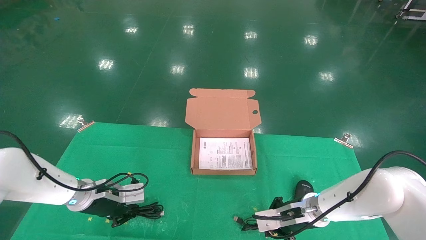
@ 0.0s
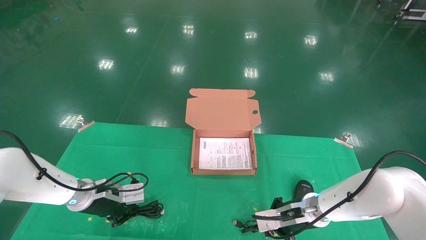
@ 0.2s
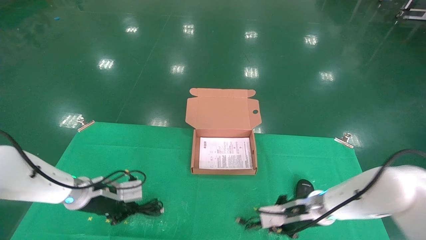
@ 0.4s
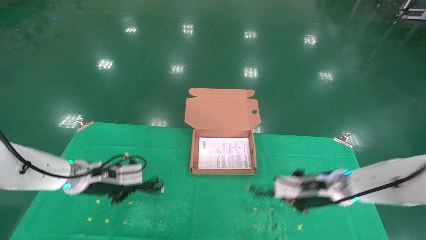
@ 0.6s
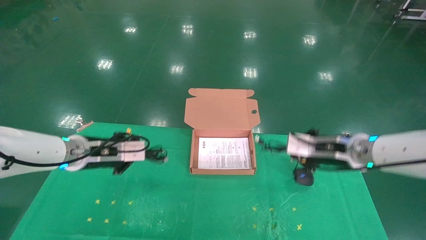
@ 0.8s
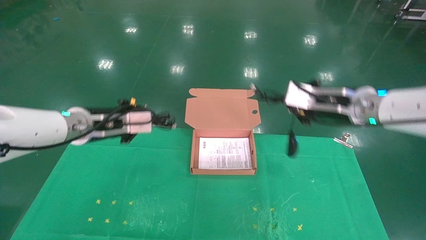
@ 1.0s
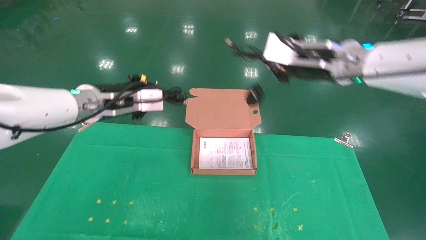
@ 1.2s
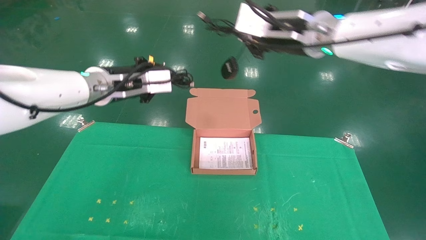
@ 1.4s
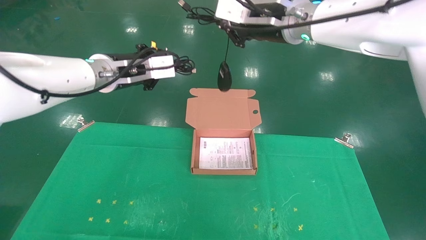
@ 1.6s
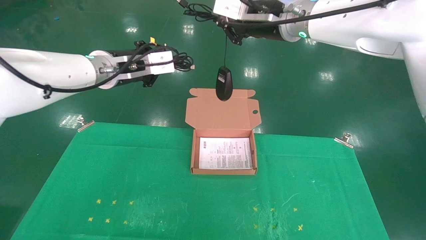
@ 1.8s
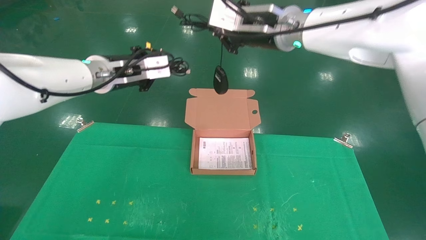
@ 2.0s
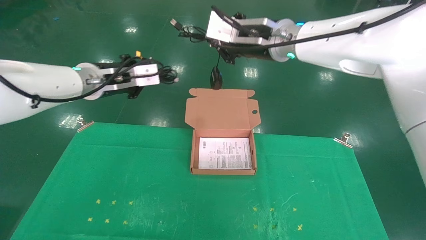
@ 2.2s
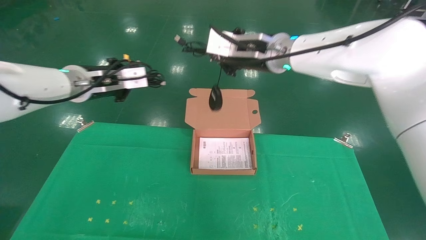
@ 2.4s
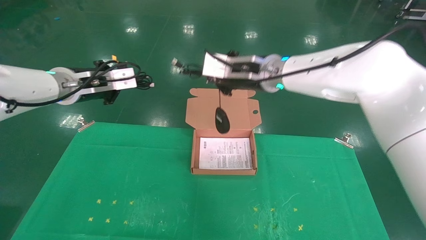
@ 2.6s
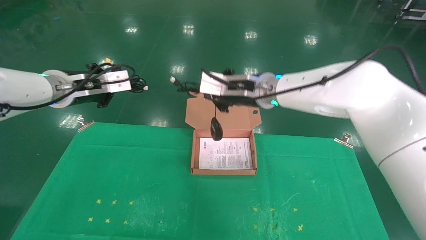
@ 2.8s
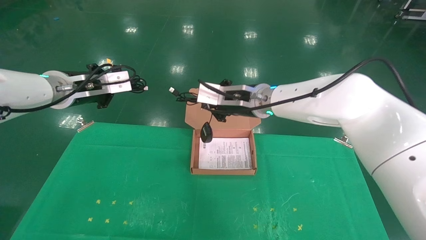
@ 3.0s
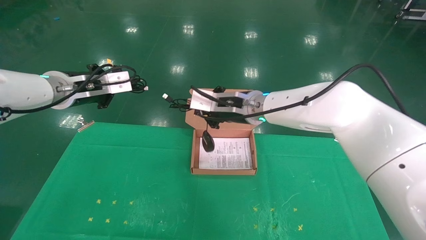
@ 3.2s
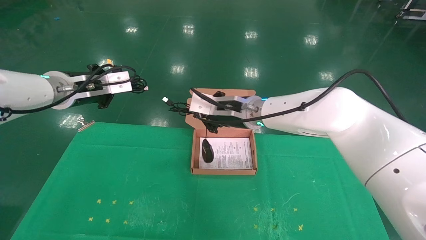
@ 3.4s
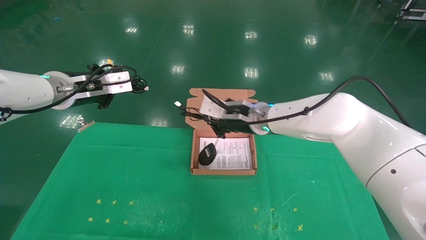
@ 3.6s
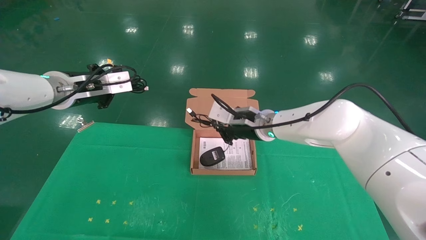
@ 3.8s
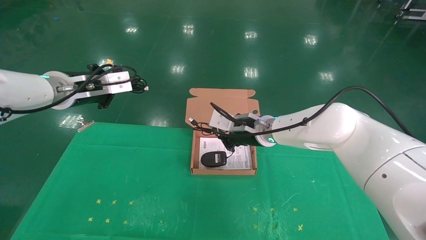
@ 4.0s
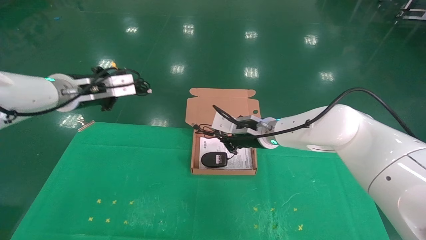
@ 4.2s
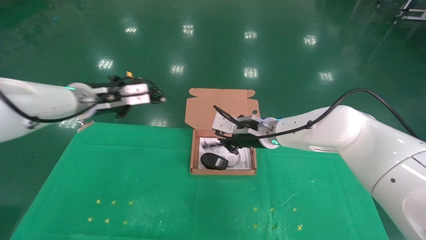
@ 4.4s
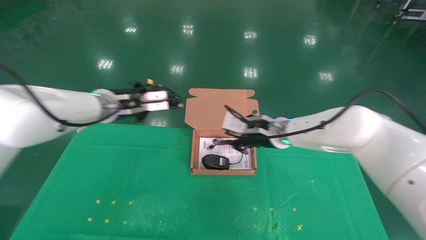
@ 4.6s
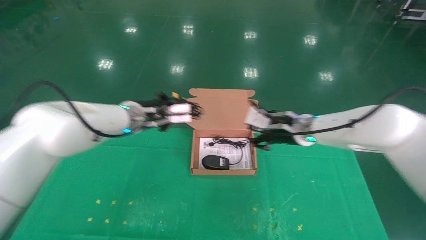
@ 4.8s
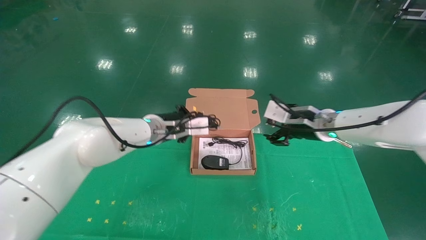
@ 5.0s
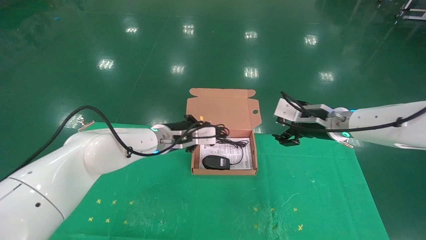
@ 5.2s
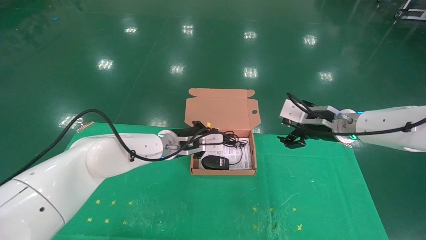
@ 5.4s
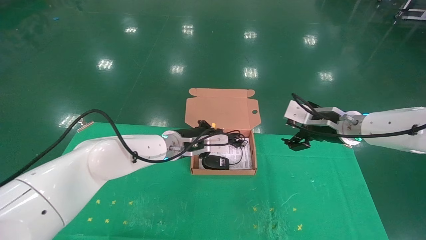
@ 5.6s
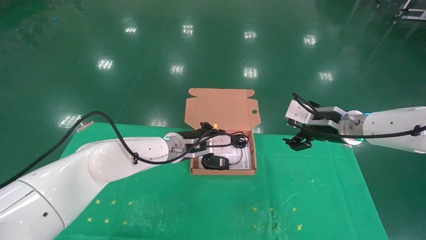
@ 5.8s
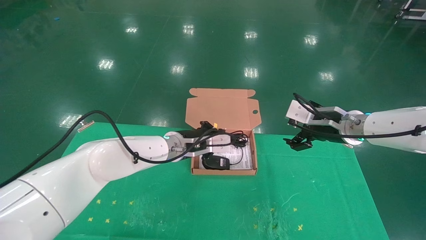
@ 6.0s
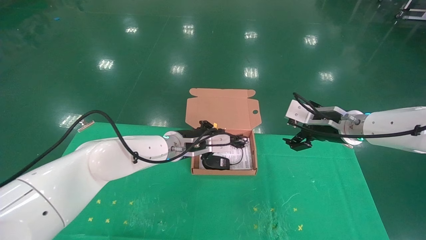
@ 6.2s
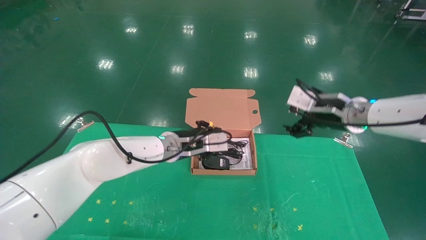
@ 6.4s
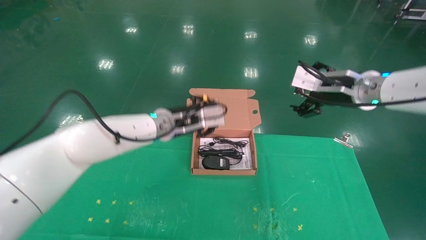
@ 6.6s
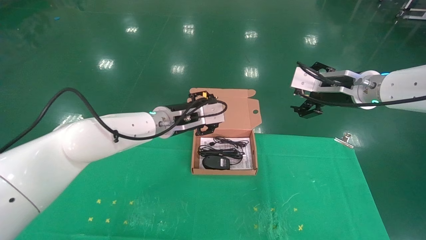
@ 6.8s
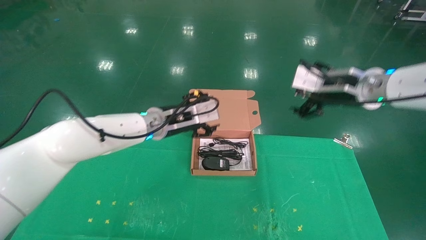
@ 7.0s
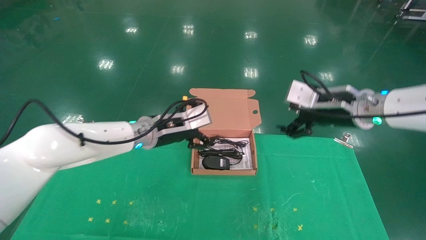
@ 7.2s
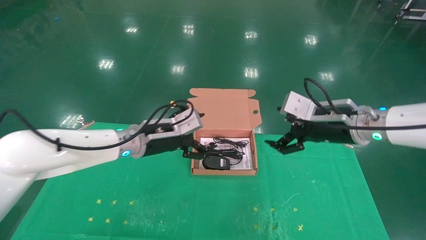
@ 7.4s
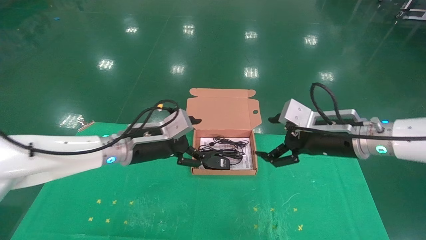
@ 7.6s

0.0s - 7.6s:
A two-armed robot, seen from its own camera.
Task of the whole recording: grasp data cable left put into box grasp mouse right put into box.
Step, 0.0s - 6.2s: Place the mouse and power cord into the box.
0.0s - 1.6s: The grippers both shift upward by some 35 cm.
1.6s - 3.0s: The left gripper heads to the left, covering about 10 cm. The right gripper moves downward, approximately 15 cm.
3.0s - 4.6s: The left gripper shifts roughly 10 cm to the right. Meanwhile the right gripper travels to the right and downward by some 10 cm.
4.6s - 6.0s: The left gripper shifts roughly 15 cm to the right and downward; the right gripper is displaced to the right by roughly 10 cm, and opens its fingers.
6.0s - 7.6s: The right gripper goes about 5 cm backward. Meanwhile the left gripper shifts some 10 cm to the left and backward, and opens up.

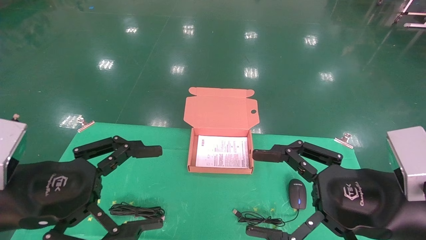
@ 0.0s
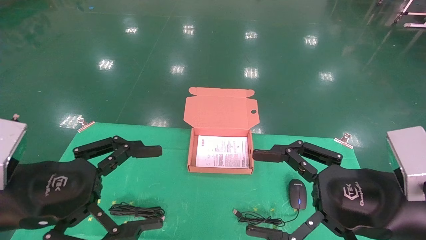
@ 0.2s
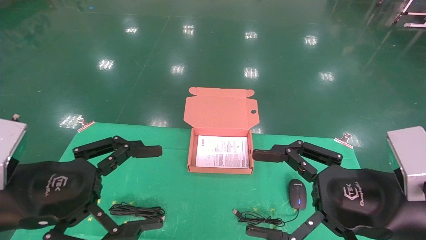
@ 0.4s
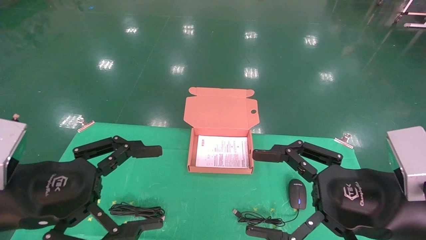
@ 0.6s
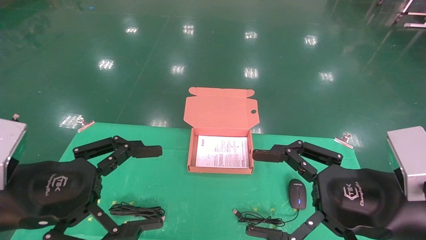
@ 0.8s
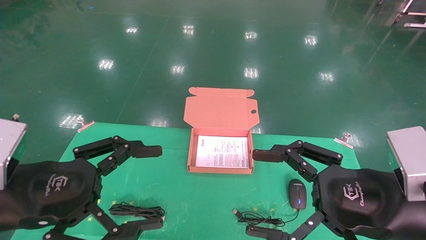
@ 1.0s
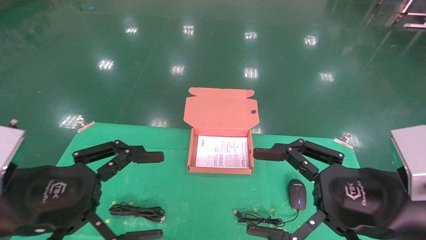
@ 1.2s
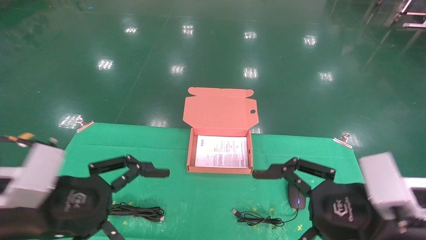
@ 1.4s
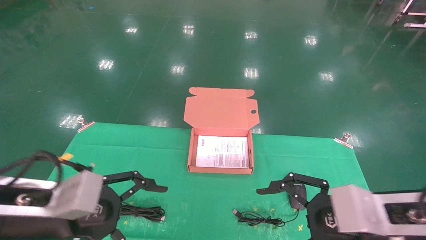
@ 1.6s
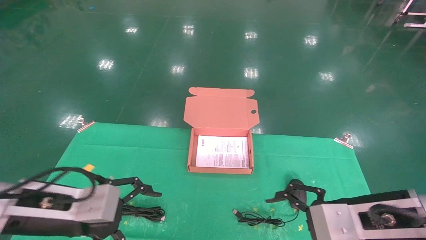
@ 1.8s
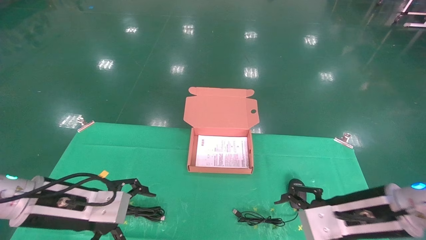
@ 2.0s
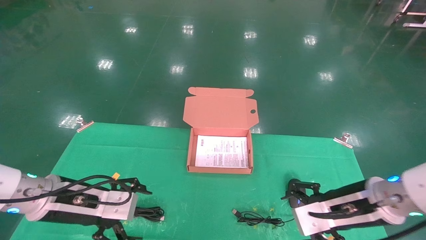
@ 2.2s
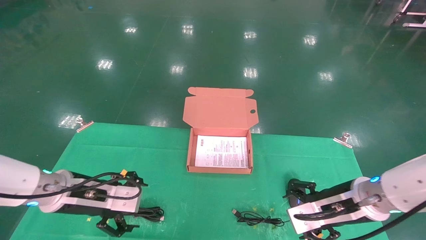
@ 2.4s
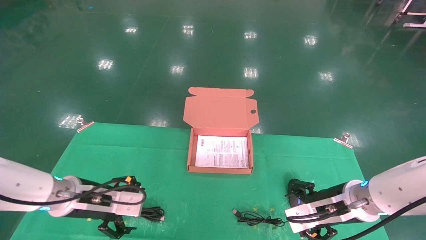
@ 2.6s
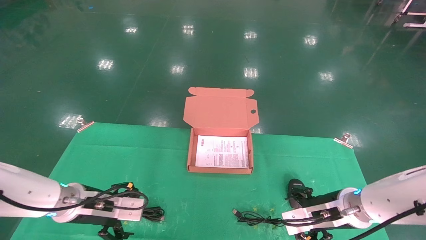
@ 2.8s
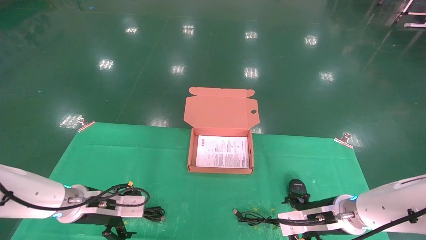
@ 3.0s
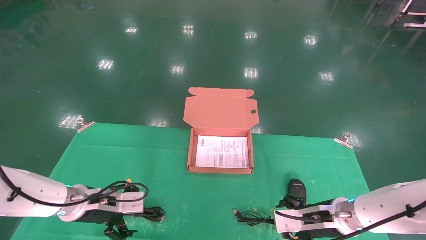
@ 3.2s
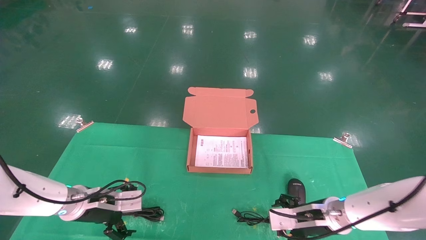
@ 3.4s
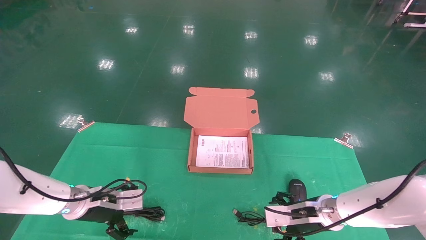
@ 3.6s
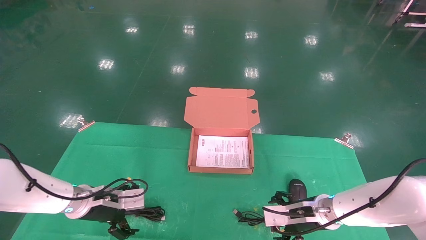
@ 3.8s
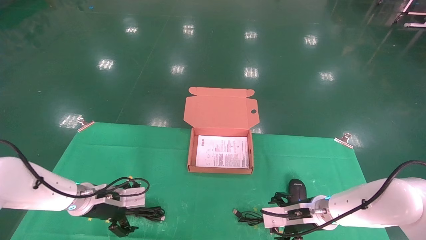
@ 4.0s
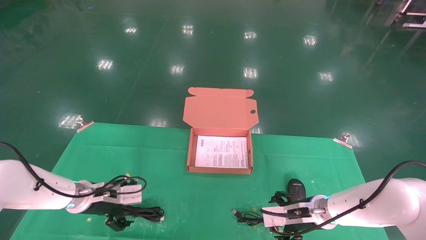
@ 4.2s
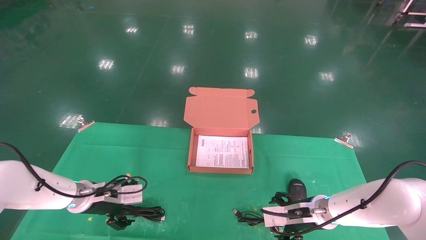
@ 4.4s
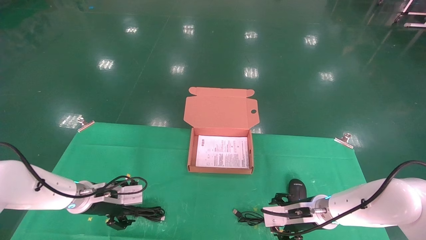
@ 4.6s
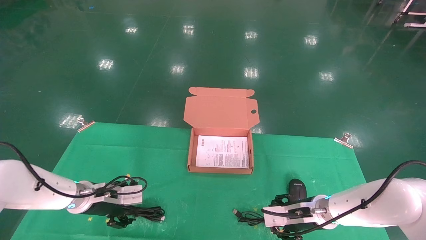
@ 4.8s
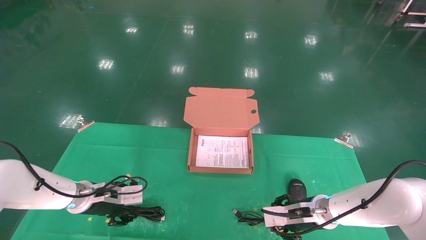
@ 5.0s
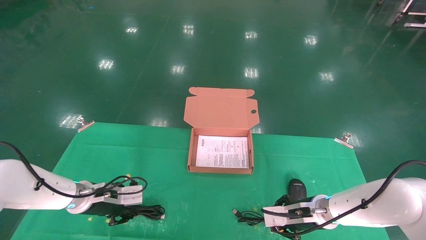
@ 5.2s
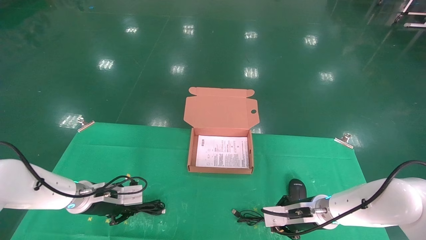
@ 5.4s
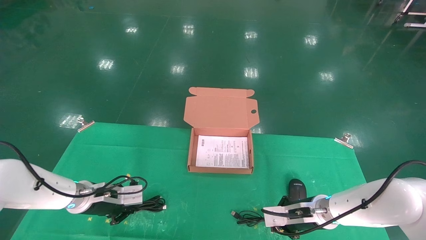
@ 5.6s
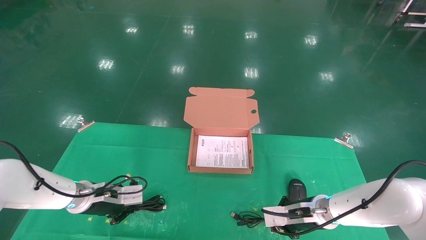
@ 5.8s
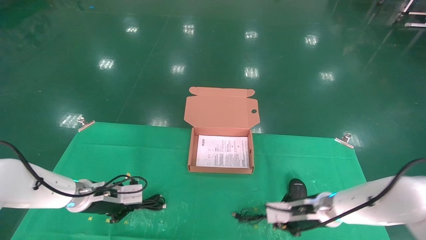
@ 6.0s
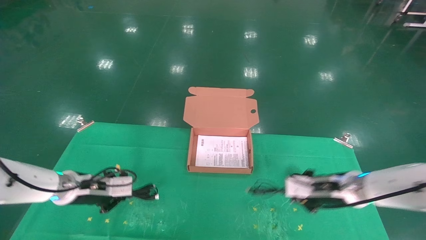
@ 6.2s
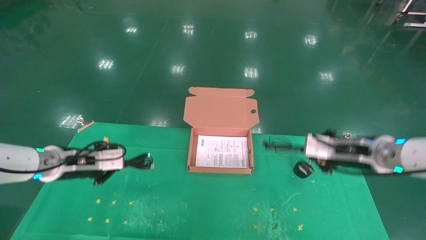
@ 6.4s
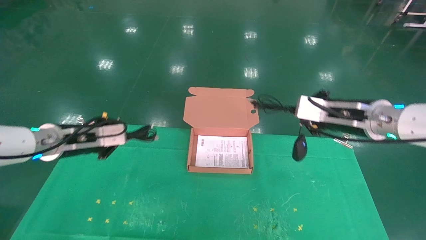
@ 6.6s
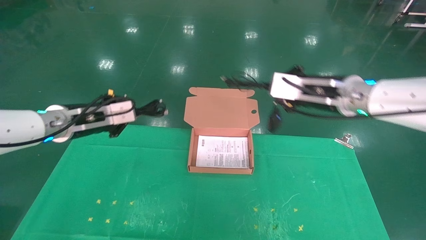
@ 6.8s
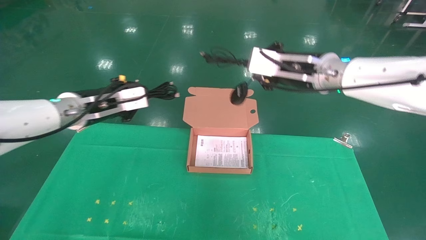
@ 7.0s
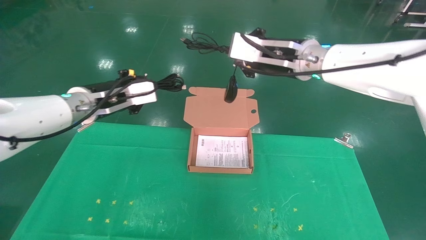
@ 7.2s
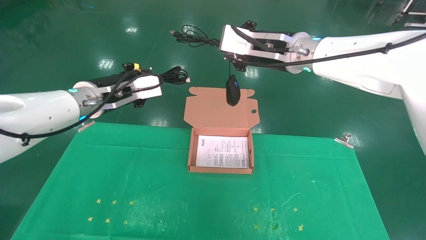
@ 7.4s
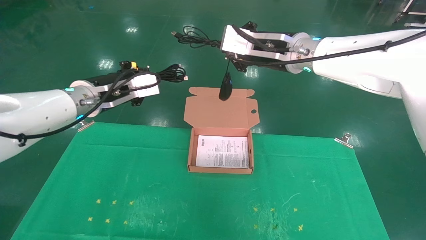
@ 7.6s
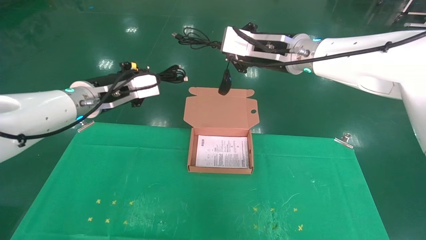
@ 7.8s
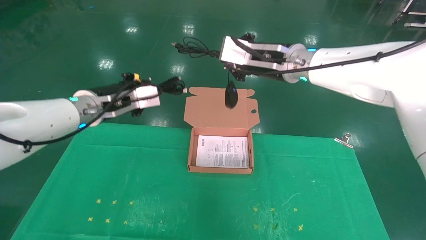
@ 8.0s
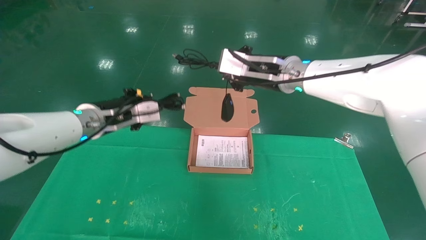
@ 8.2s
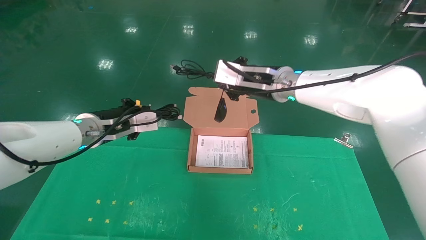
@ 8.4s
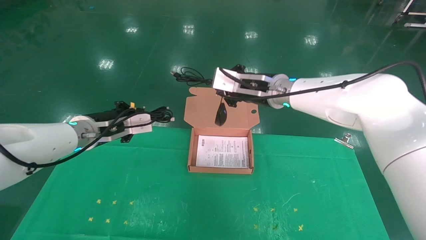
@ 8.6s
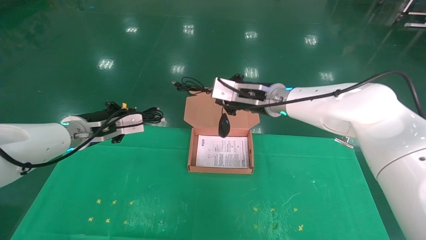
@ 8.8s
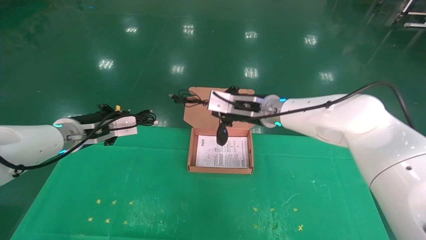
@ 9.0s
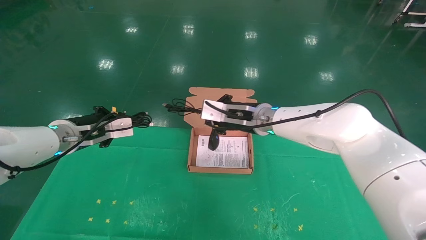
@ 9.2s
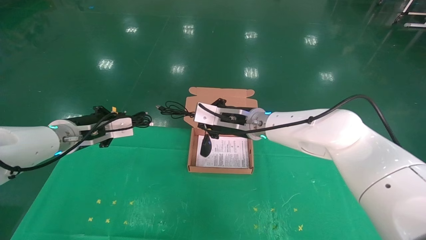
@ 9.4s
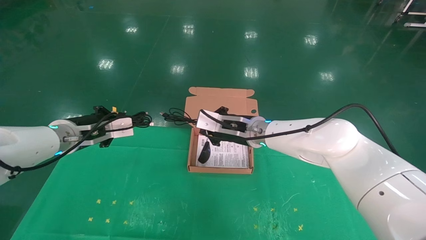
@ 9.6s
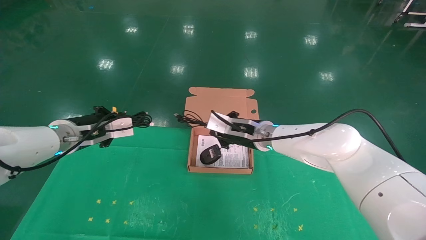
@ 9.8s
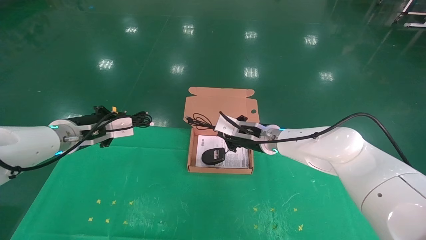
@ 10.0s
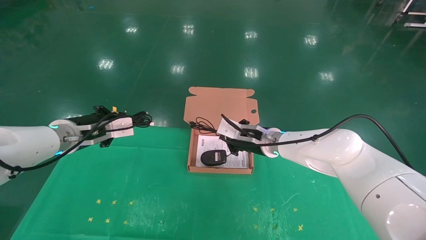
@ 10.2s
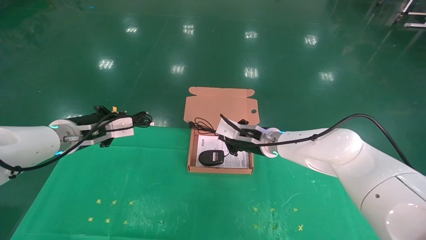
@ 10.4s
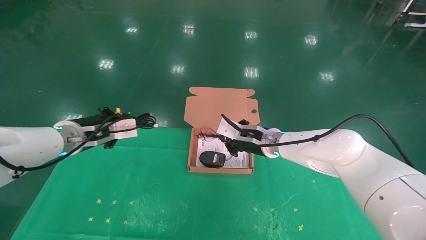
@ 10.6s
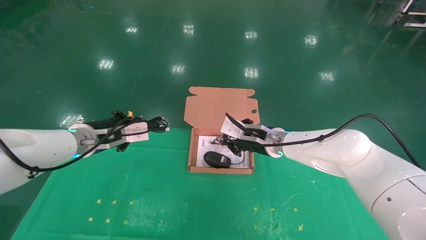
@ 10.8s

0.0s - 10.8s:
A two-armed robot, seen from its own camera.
Task of the whole recording: grasp data cable left put into box grasp mouse right put into box.
Step, 1.2s - 6.2s: Grab and pick up both the mouse and power cord from the accessory packaging area at the same time.
1.6s - 3.0s: The two grippers go approximately 15 cm forward and downward.
3.0s - 4.6s: The right gripper travels forward and downward by roughly 10 cm. Meanwhile the left gripper moves forward, roughly 5 cm.
4.6s - 6.2s: The left gripper moves about 5 cm, and closes up; the right gripper moves upward, approximately 10 cm, and closes up.
6.2s - 7.8s: The left gripper shifts about 20 cm upward and to the right; the right gripper shifts some 30 cm upward and to the left.
7.8s - 9.2s: The right gripper moves downward, roughly 15 cm. The left gripper is displaced downward and to the left by about 10 cm.
9.2s - 10.8s: The right gripper travels downward and to the right by roughly 10 cm.
